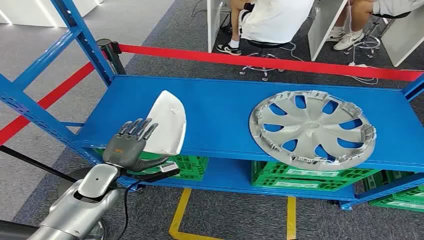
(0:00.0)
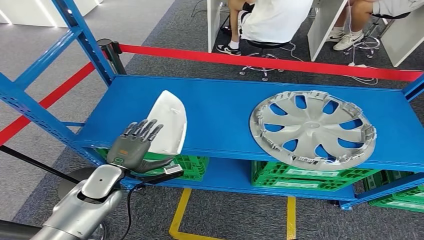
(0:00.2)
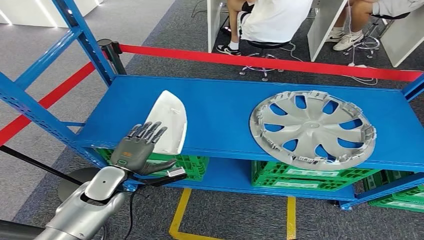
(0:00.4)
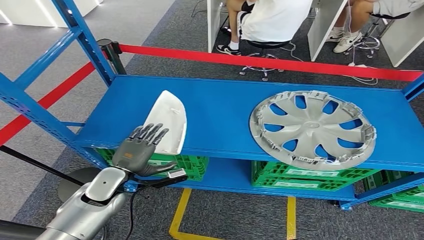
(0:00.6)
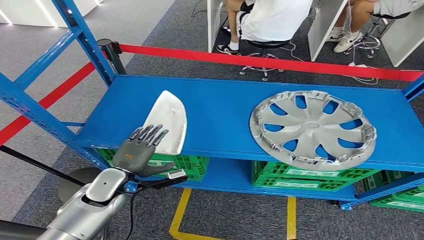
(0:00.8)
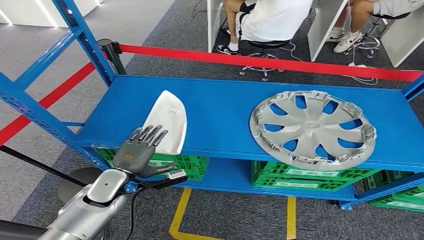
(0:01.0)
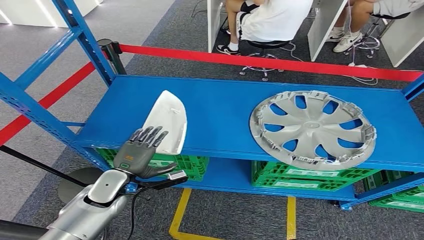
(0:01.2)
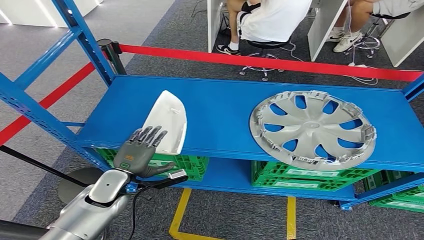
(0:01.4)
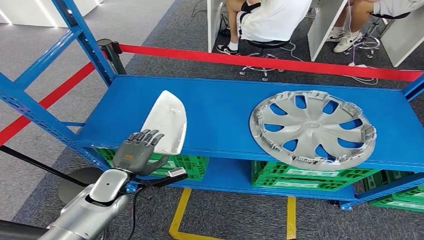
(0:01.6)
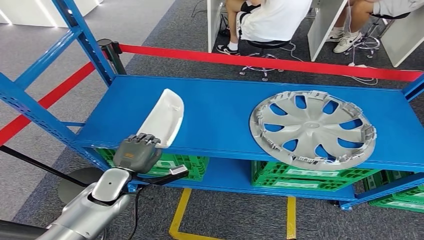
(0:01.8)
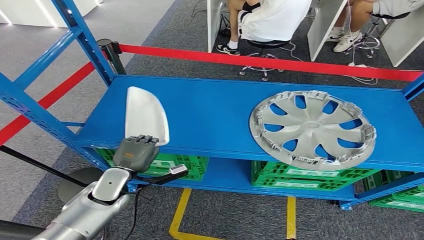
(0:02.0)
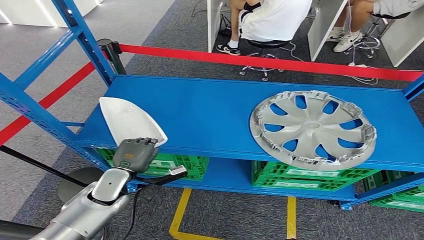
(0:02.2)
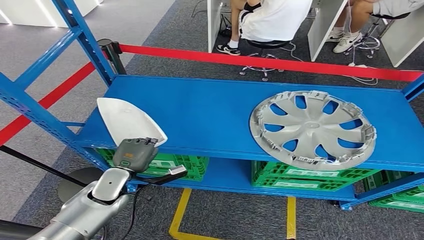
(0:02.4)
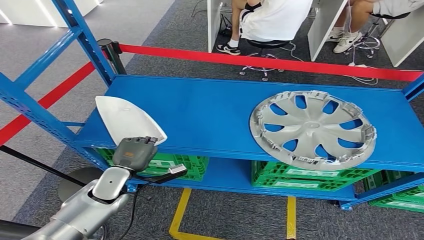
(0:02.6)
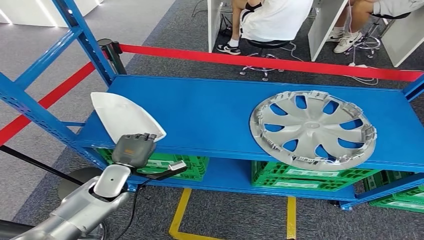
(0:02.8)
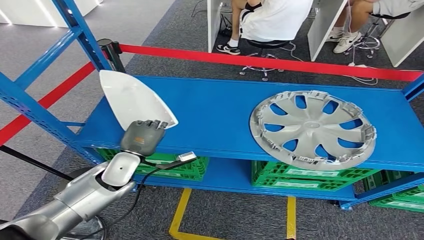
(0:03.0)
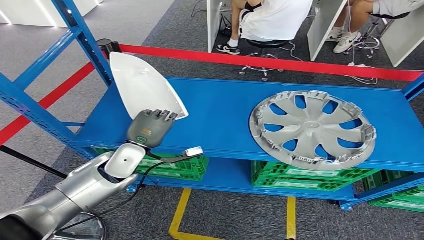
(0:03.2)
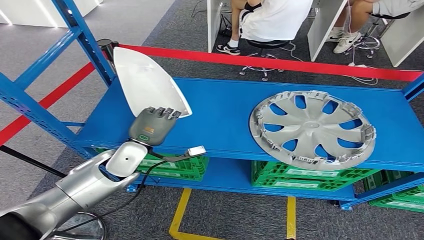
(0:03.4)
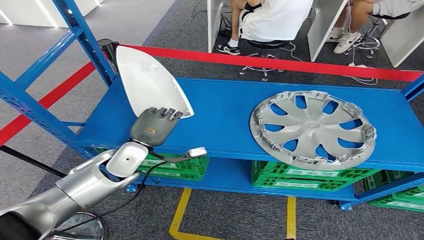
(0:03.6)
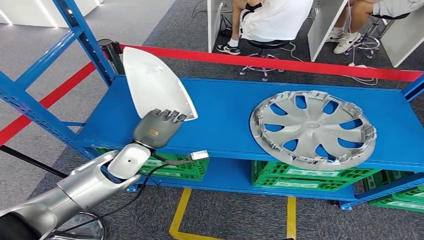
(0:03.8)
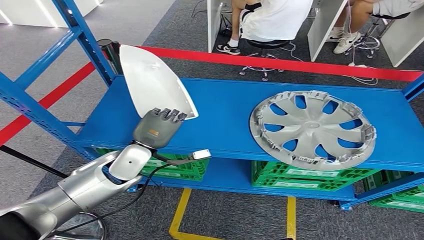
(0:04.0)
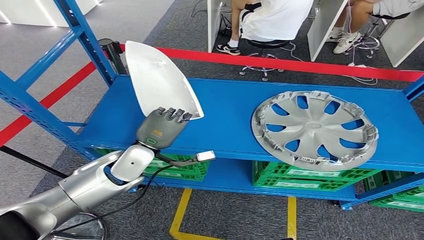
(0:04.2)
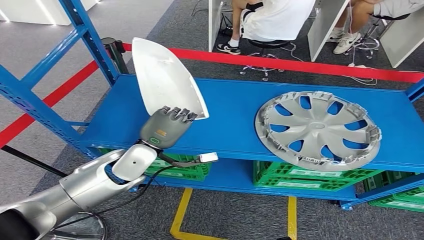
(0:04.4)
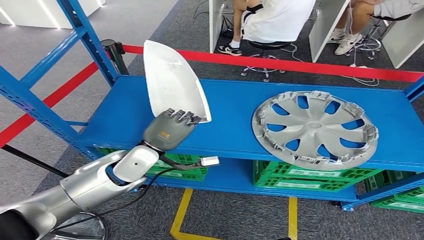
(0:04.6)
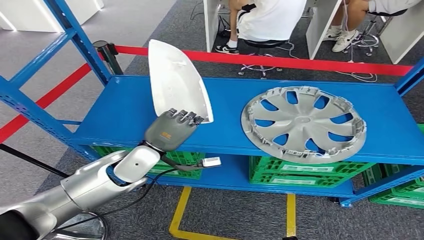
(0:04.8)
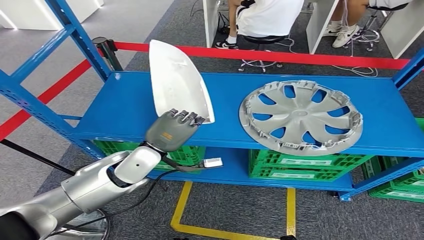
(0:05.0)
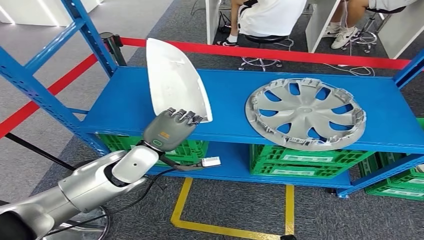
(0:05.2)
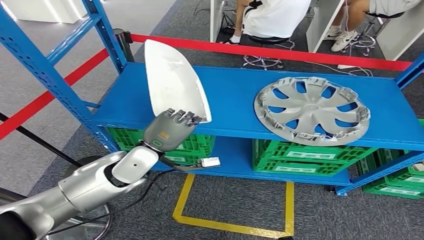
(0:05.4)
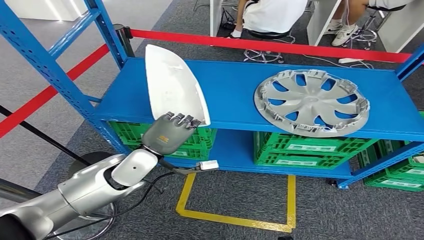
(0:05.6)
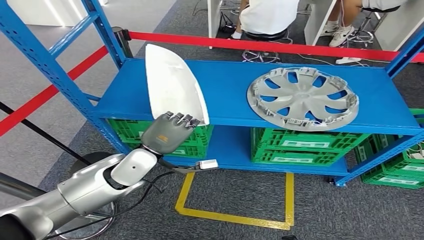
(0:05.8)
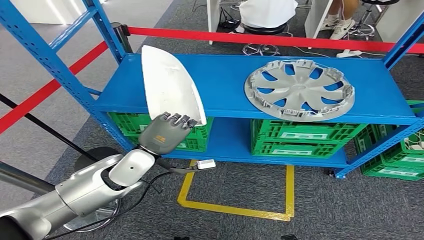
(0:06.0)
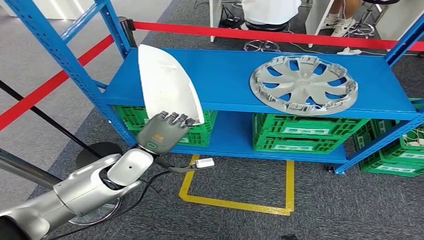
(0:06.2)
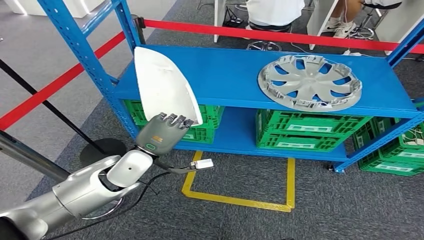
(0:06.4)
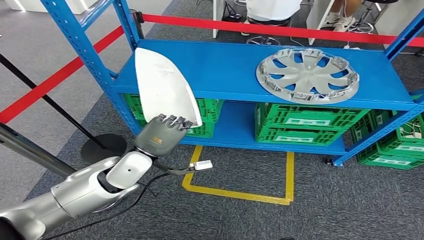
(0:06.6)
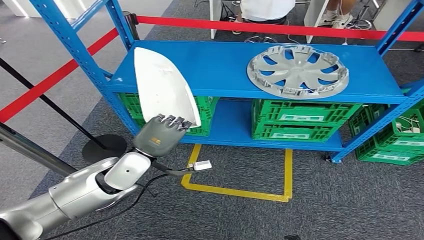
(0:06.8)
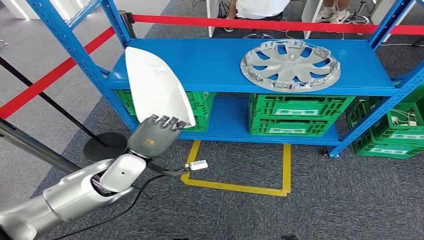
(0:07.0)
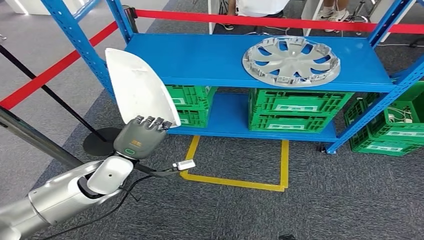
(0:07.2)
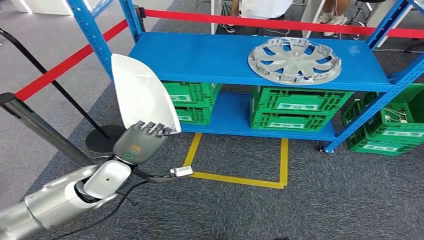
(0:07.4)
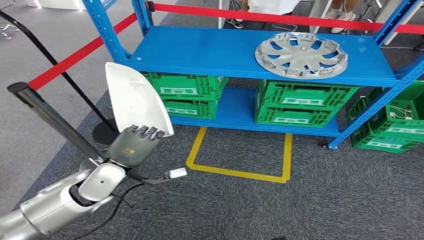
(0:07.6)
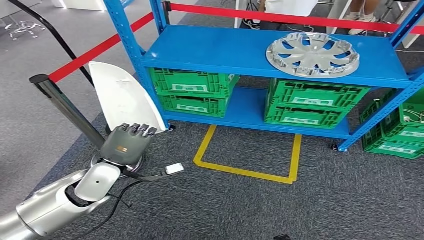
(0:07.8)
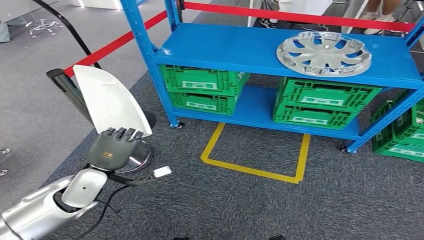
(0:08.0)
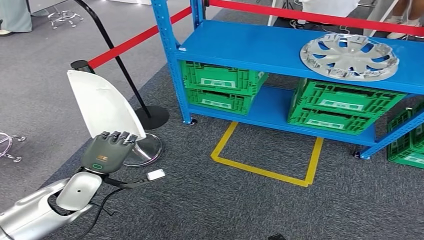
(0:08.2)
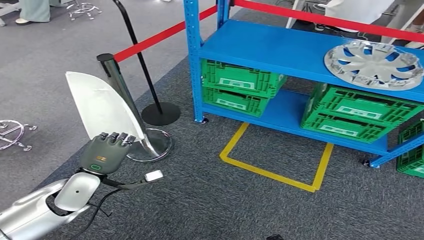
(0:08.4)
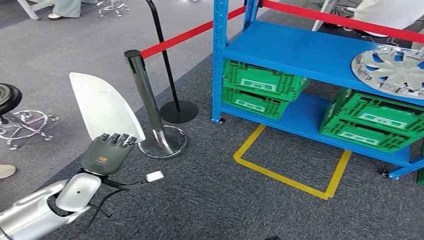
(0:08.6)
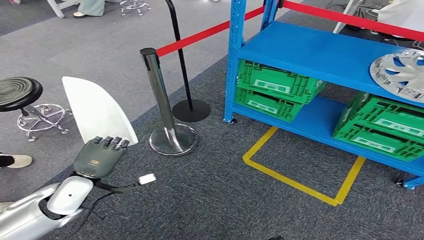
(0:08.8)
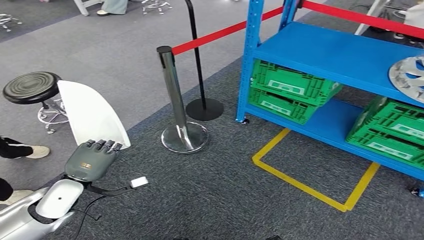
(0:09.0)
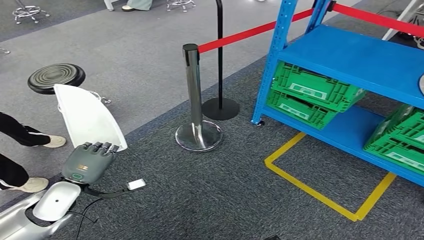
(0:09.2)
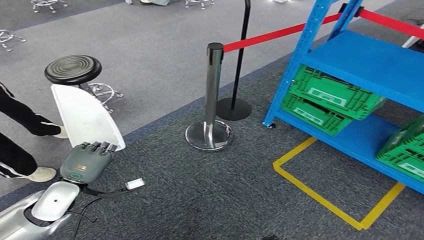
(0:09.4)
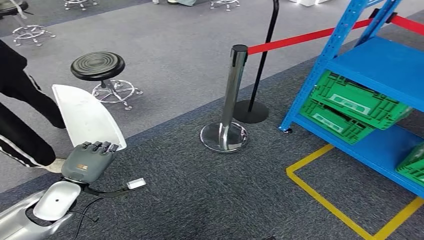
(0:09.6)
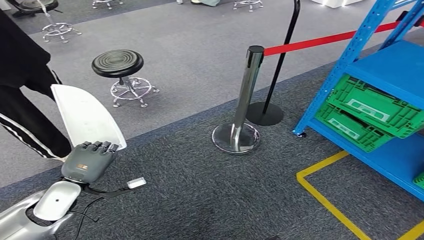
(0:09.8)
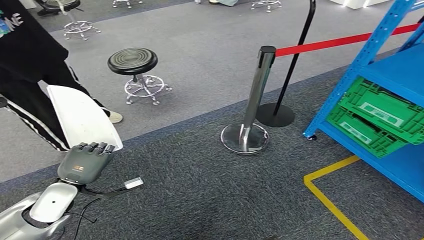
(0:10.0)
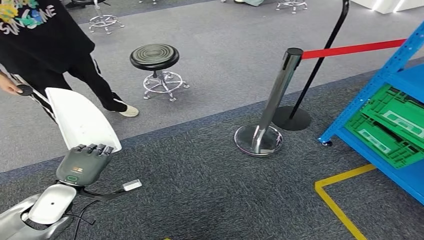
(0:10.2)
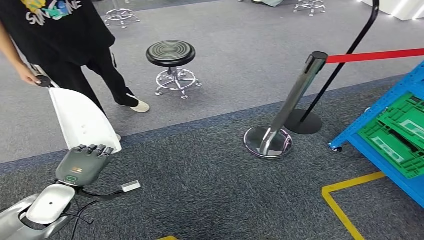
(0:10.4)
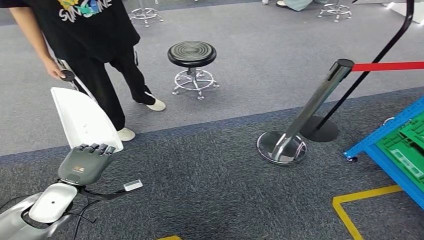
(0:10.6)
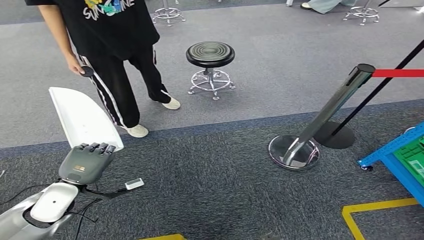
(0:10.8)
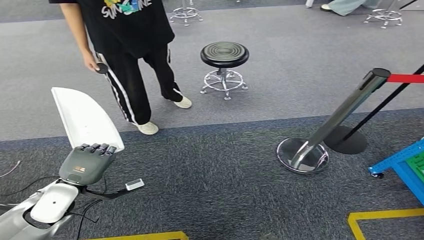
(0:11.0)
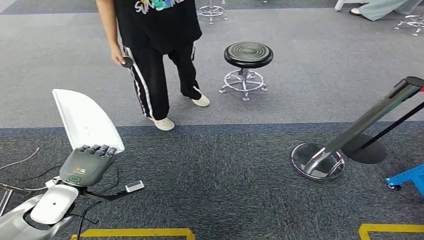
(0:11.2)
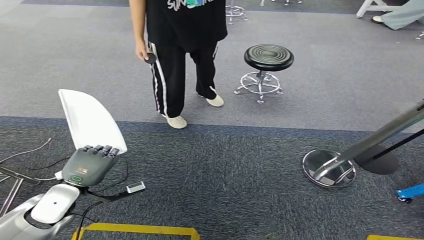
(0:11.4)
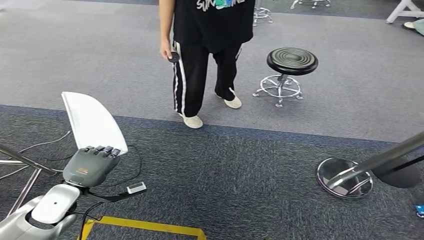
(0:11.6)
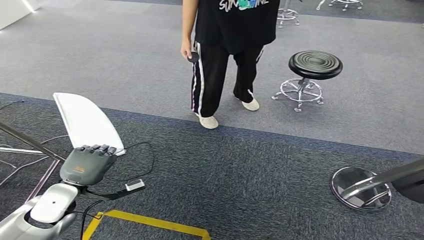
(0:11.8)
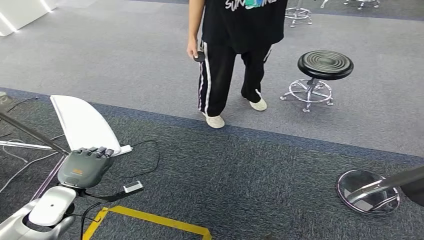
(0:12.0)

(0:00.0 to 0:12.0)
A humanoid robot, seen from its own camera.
Step, 0:00.0 - 0:05.6: Pick up the small component from the shelf.
0:01.6 - 0:03.0: The hands stay close to where they were, moving slightly.

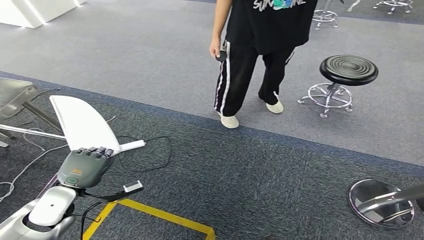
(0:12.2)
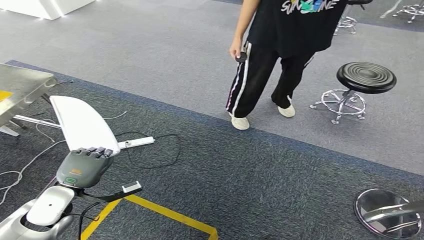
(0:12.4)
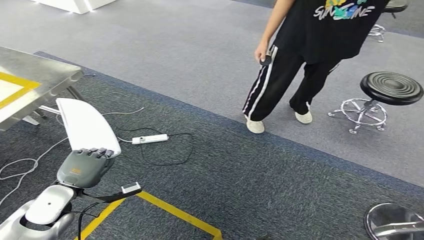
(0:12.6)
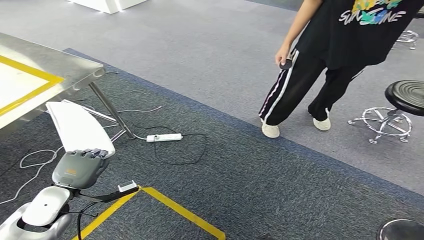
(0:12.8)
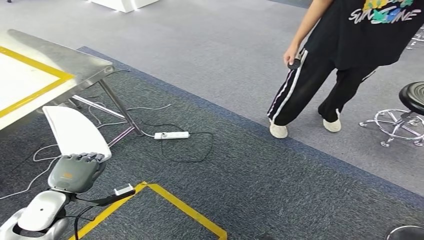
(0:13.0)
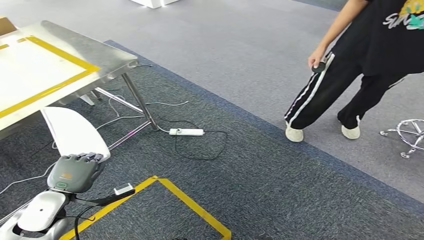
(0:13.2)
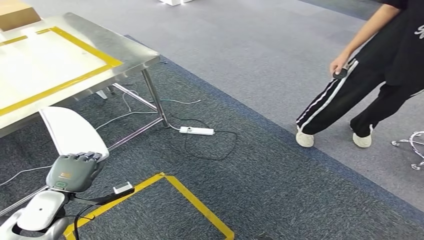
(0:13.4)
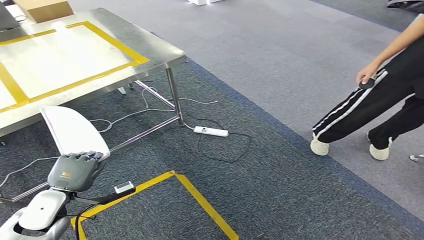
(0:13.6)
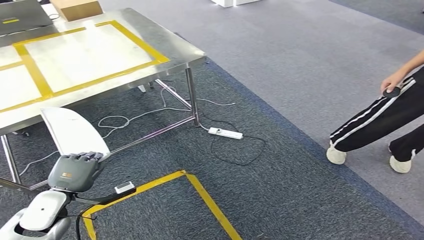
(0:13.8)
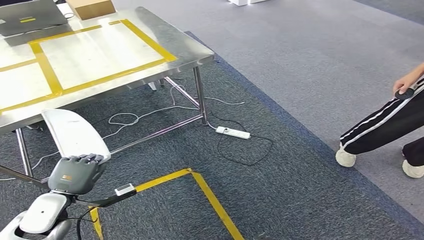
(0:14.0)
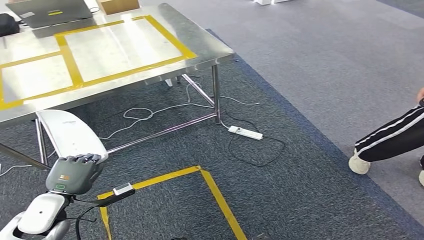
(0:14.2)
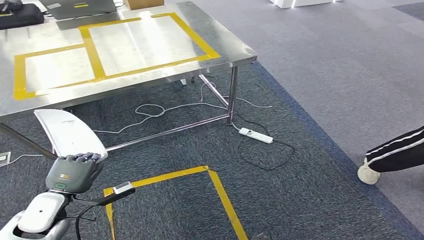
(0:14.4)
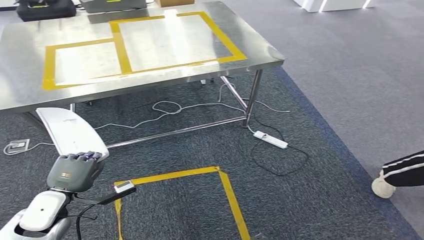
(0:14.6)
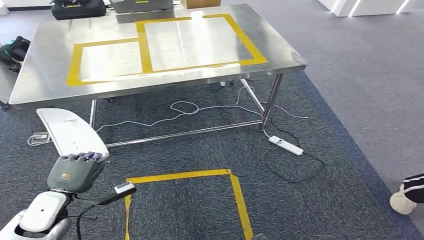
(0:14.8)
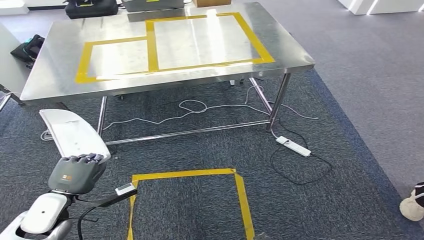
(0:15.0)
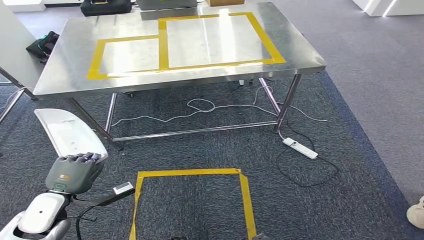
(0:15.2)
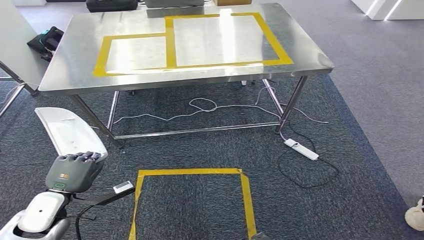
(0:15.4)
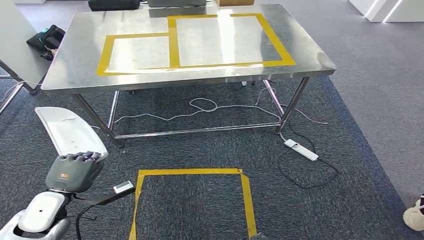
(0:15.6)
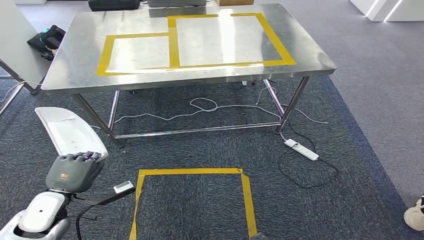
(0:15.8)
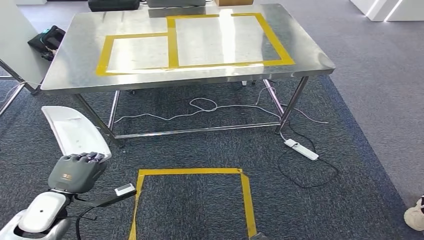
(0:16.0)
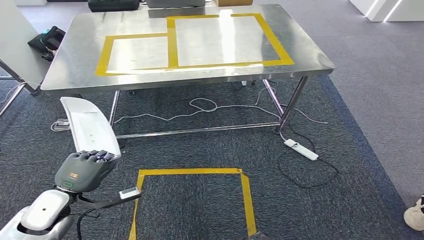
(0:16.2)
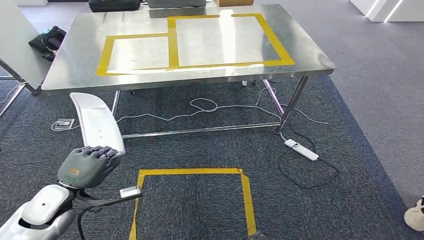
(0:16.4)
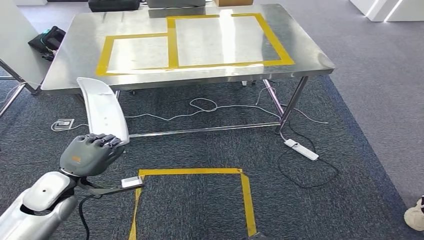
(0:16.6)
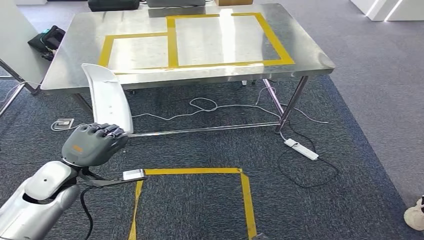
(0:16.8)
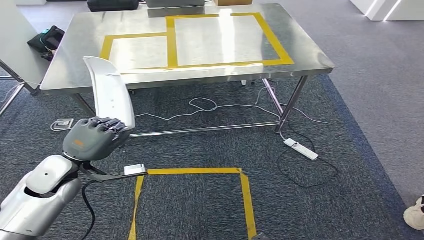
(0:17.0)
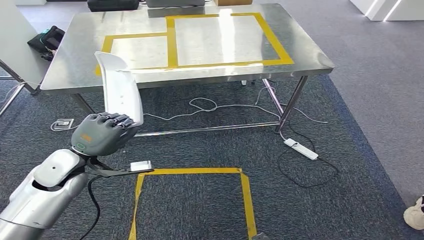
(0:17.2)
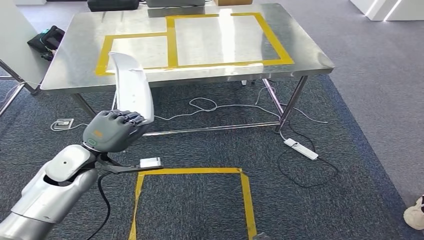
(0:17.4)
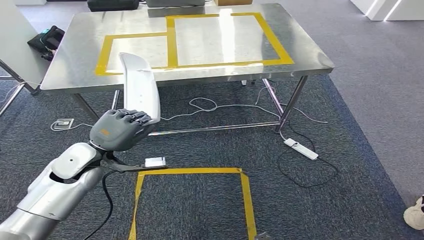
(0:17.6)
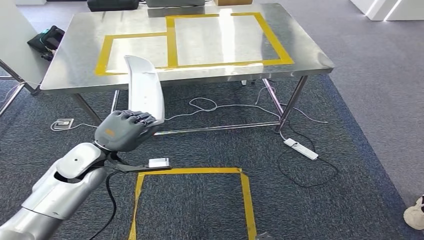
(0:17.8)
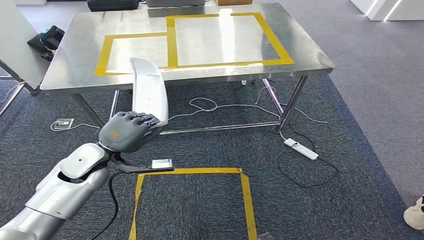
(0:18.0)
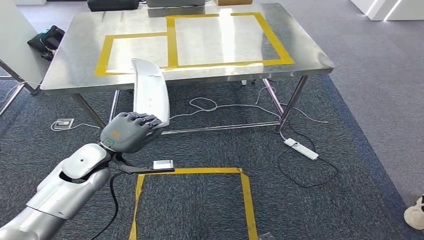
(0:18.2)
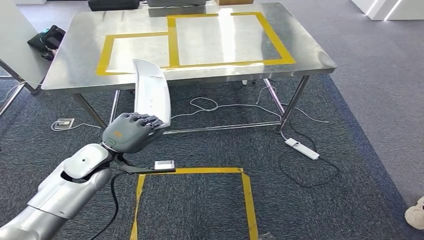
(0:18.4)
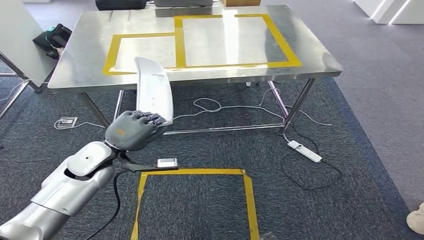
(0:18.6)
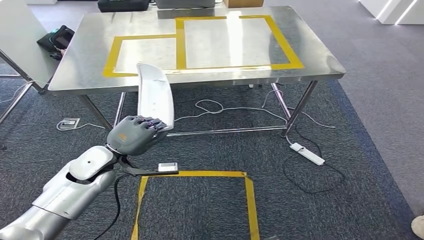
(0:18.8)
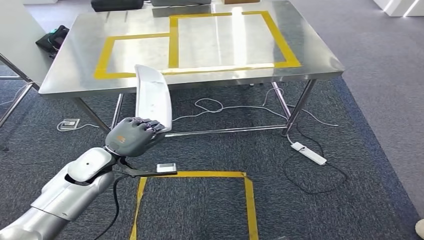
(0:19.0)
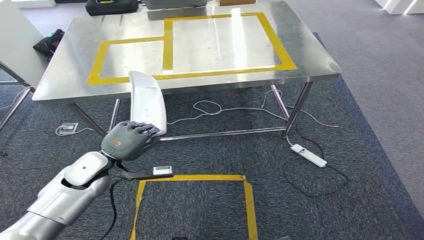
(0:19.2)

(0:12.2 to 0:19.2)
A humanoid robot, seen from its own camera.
Step, 0:12.2 - 0:14.4: Move the small component to the workbench.
0:16.4 - 0:17.8: The left hand travels forward, to the right and upward by approximately 15 cm.
